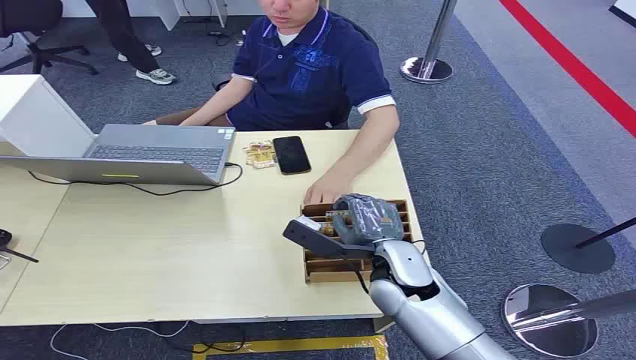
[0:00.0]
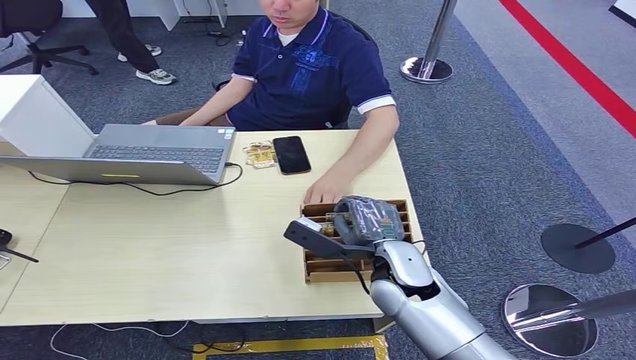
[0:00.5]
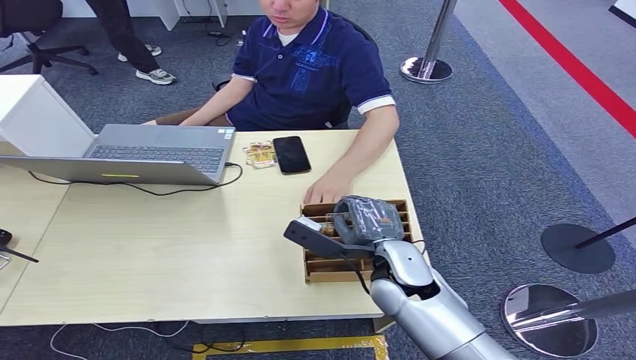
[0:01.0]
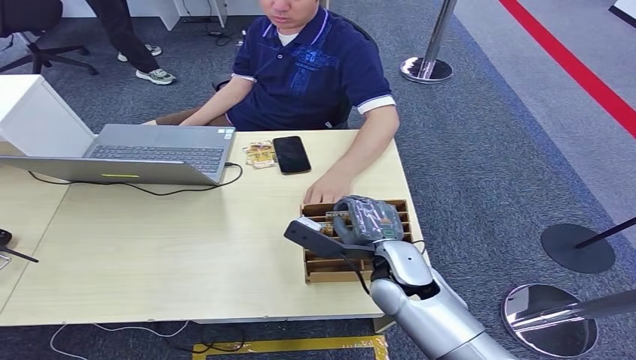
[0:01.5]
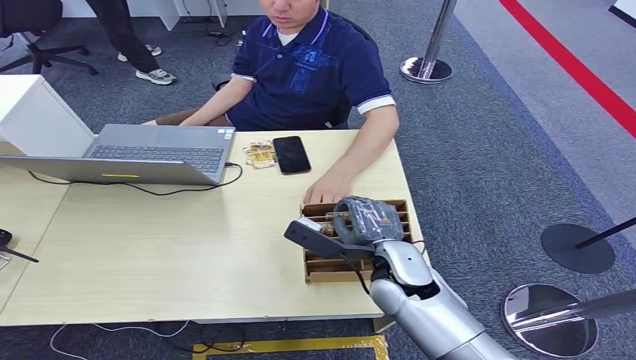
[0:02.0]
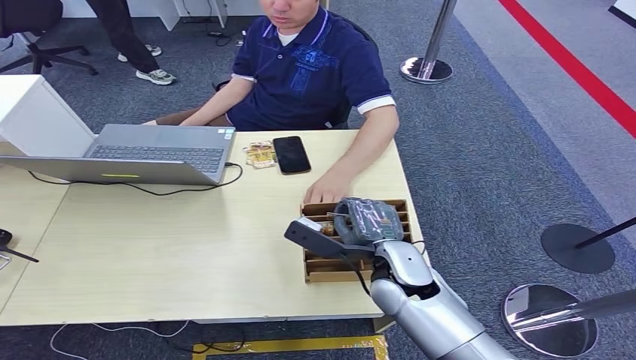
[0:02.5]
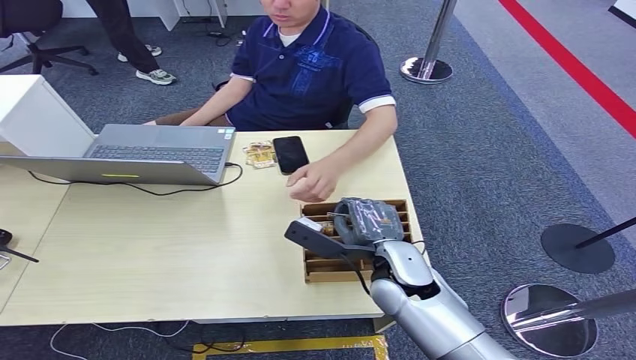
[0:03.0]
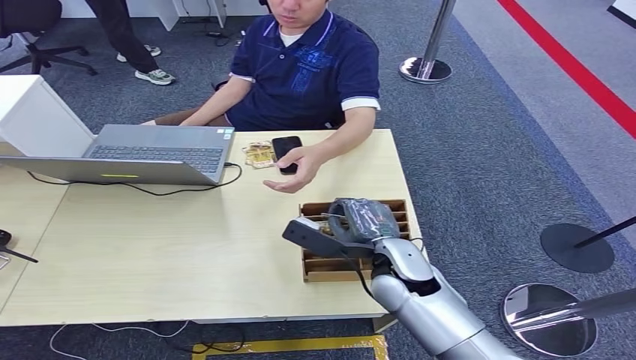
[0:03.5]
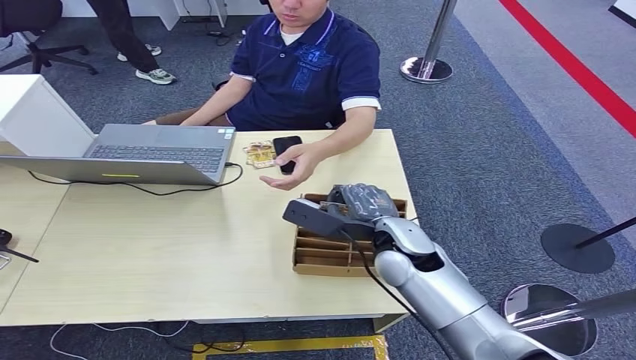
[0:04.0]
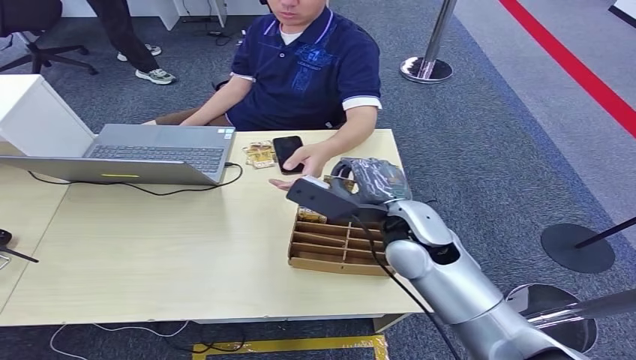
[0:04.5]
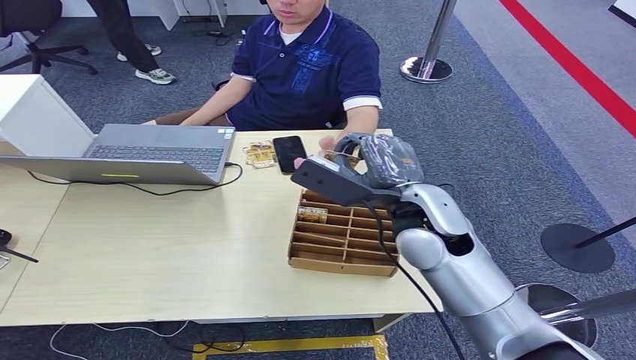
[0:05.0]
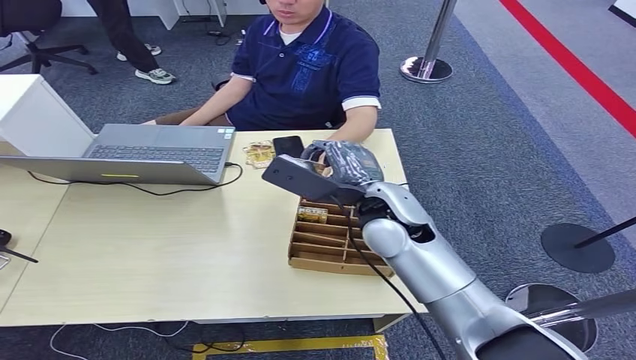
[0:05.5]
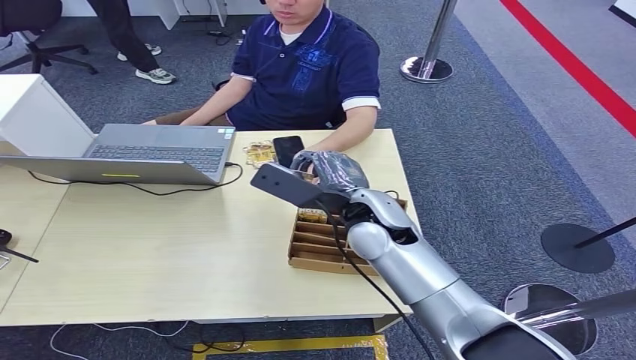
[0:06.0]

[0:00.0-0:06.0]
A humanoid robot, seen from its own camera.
Step, 0:00.0 to 0:04.0: Pick up the key card from the card box.
Step, 0:04.5 to 0:06.0: Hand the key card to the target.
0:02.0 to 0:04.0: The hands move only a little.
0:04.0 to 0:06.0: The right hand moves upward, roughly 5 cm.
